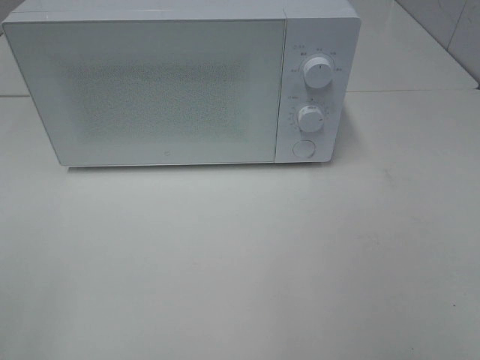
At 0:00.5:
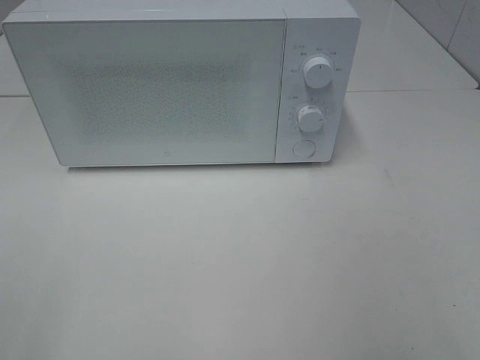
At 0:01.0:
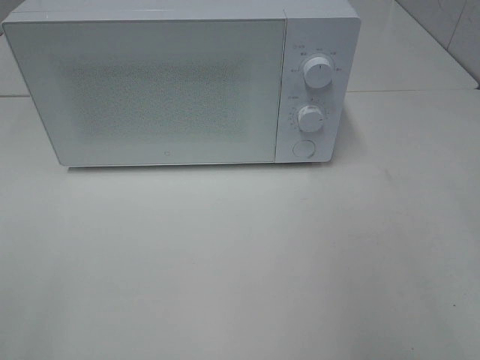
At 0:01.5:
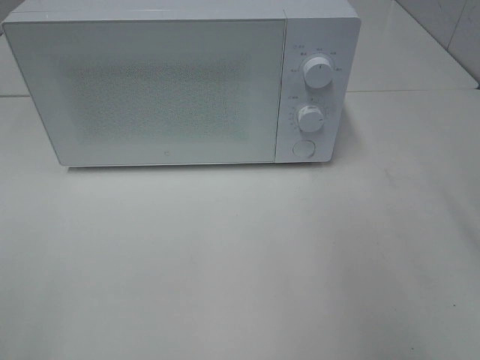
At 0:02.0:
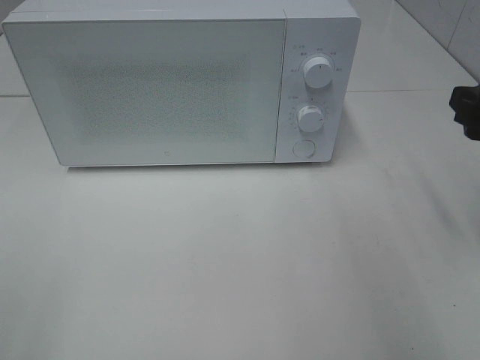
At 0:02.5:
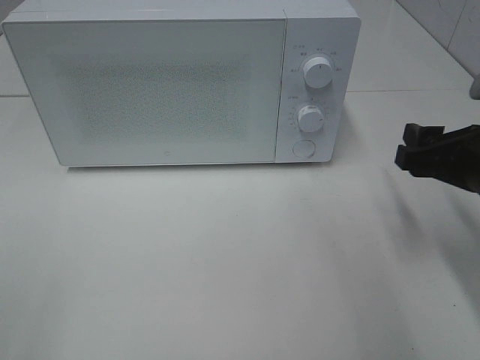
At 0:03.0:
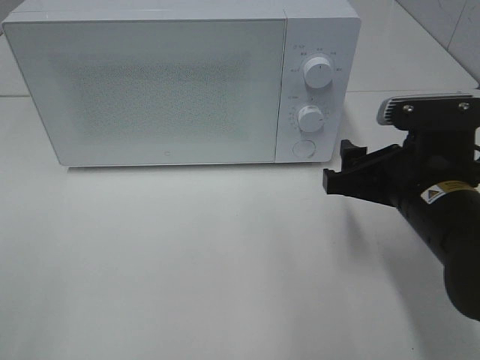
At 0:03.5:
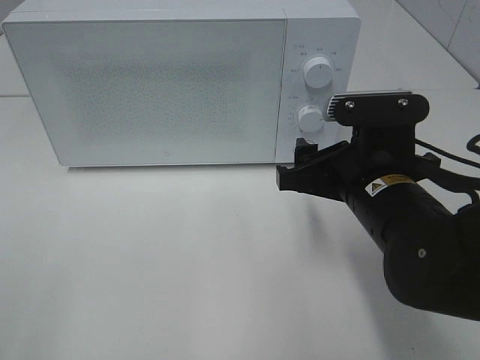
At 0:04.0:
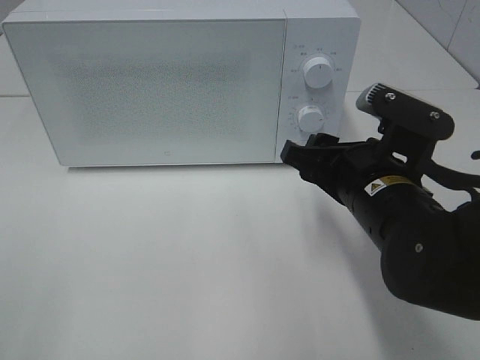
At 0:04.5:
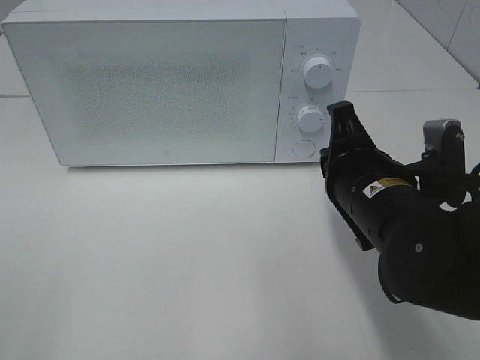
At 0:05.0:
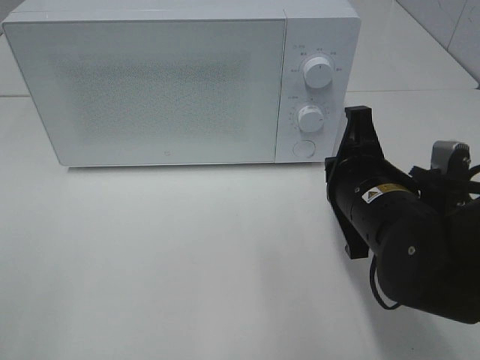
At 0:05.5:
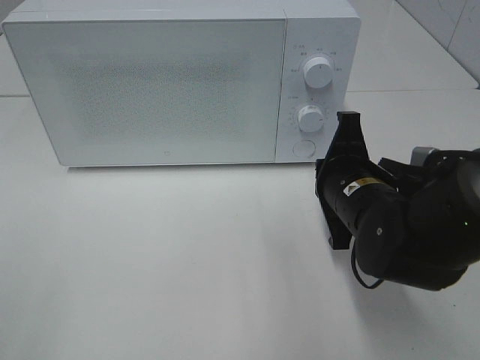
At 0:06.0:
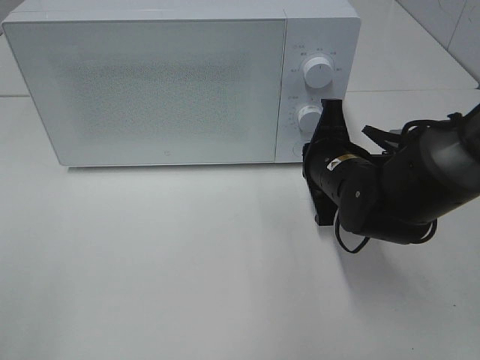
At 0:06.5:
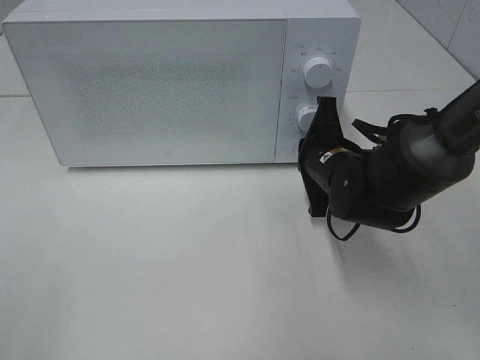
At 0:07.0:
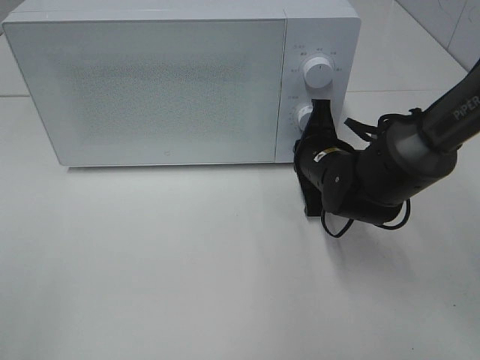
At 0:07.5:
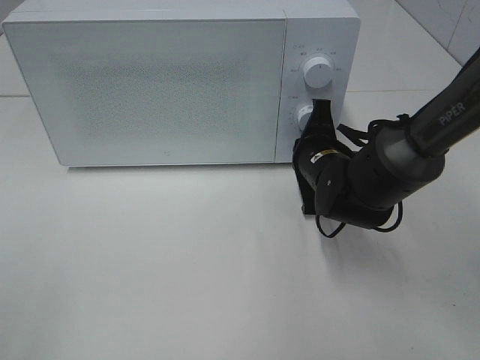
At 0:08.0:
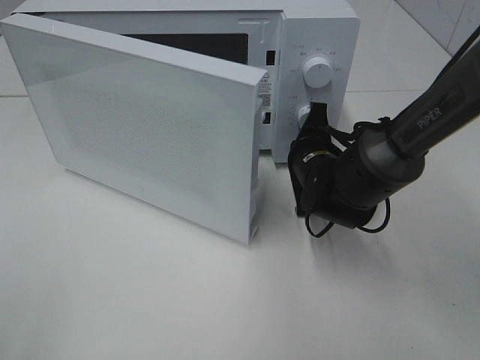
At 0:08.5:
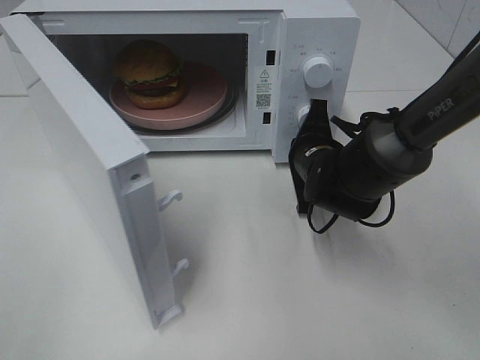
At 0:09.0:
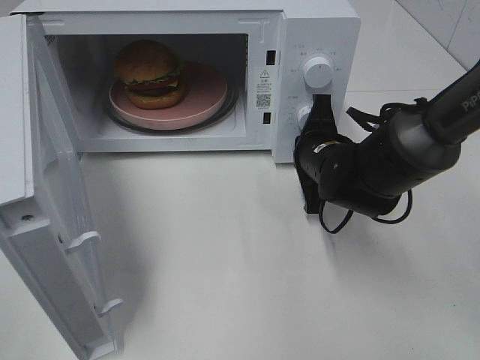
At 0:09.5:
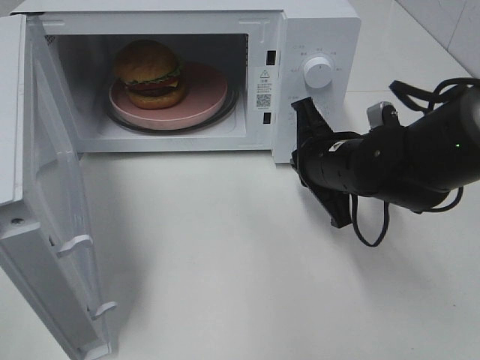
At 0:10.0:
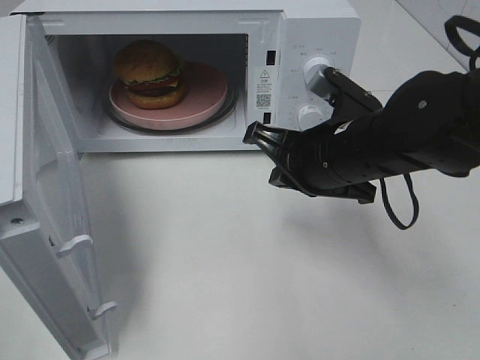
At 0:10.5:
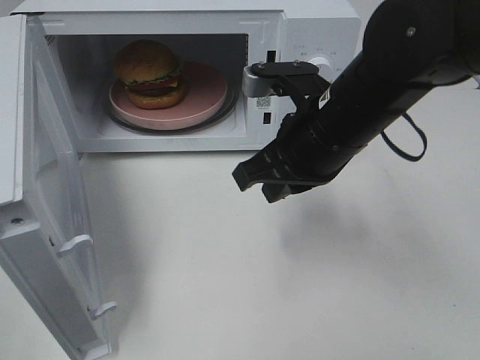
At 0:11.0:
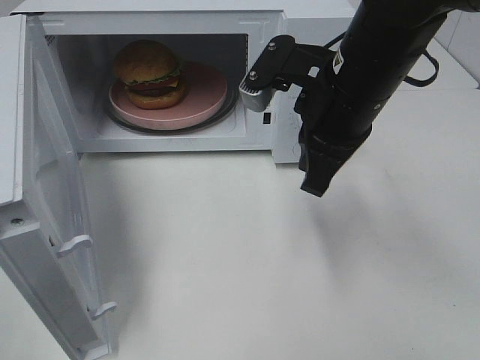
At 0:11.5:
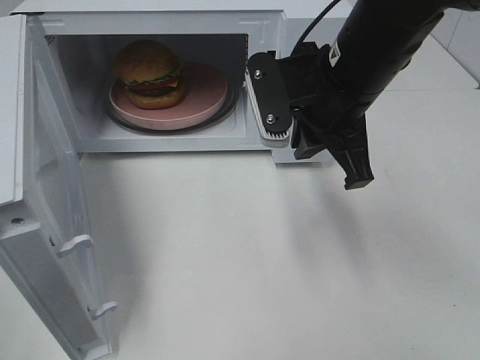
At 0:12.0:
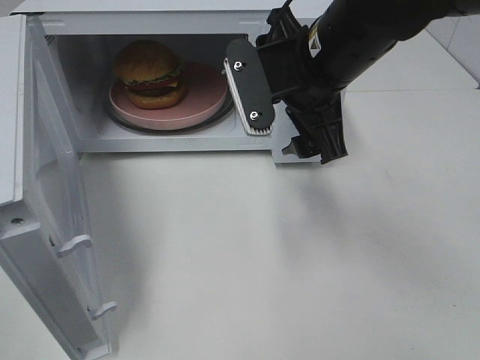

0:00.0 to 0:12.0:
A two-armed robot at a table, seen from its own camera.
Task of the whole recording: Heat the burger.
Step, 0:00.0 to 0:09.0: Right hand: press the switch.
0:00.0 to 0:02.0: The right gripper is displaced forward by roughly 20 cm.
0:02.0 to 0:04.0: The right gripper travels to the left and downward by about 15 cm.
0:04.0 to 0:06.0: The right gripper shifts some 10 cm forward, and closes its fingers.
0:06.0 to 0:08.0: The right gripper is displaced forward by approximately 5 cm.
0:08.0 to 0:10.0: The right gripper travels upward and backward by approximately 10 cm.
0:10.0 to 0:12.0: The right gripper travels upward by approximately 10 cm, and opens up.

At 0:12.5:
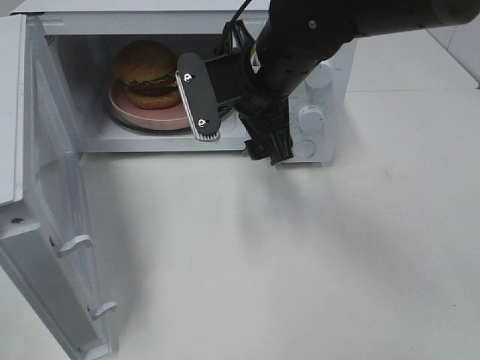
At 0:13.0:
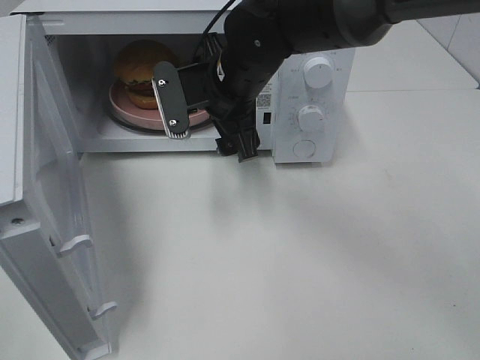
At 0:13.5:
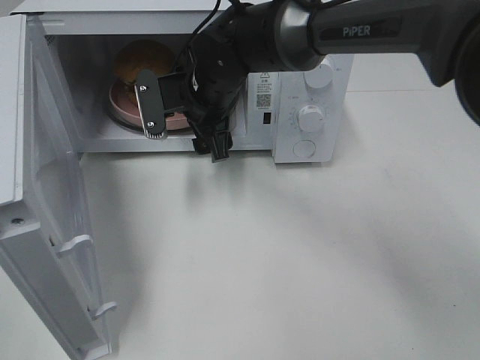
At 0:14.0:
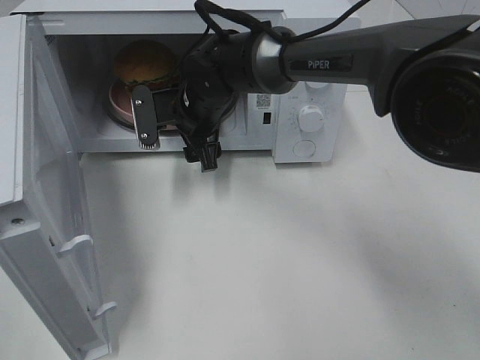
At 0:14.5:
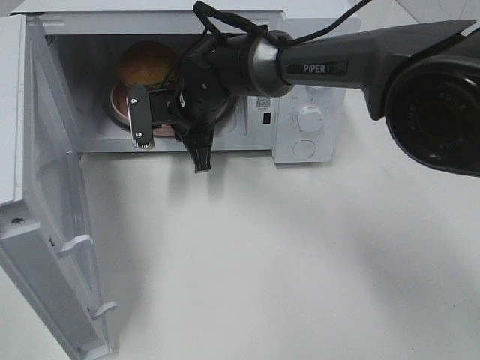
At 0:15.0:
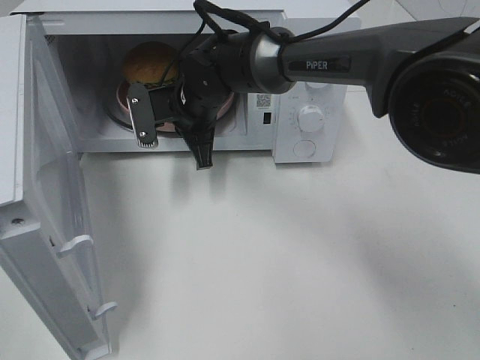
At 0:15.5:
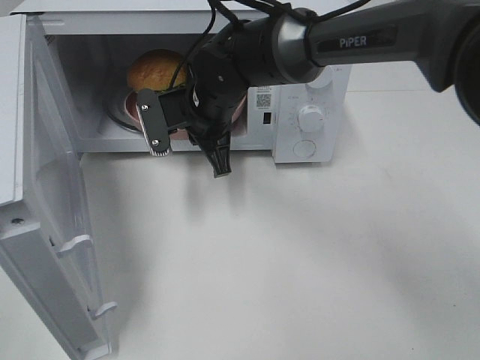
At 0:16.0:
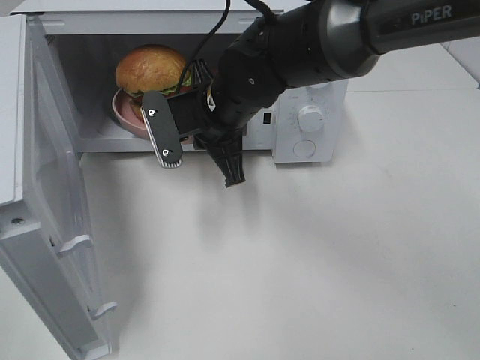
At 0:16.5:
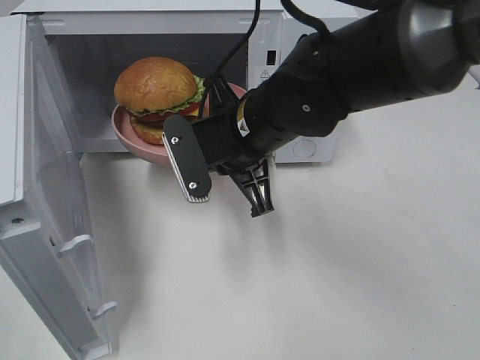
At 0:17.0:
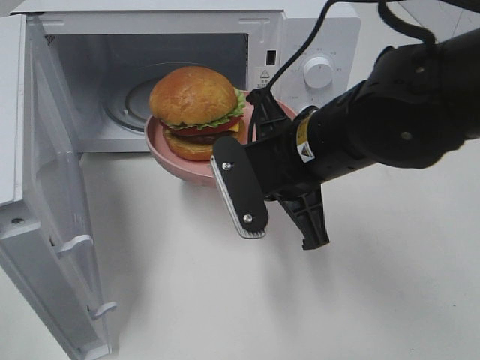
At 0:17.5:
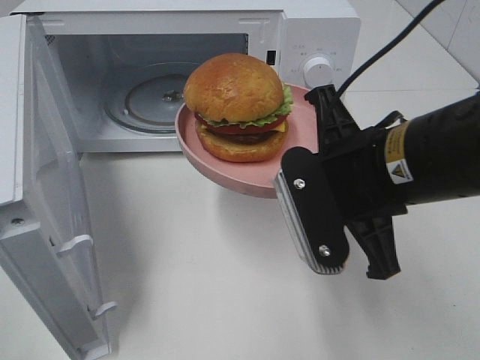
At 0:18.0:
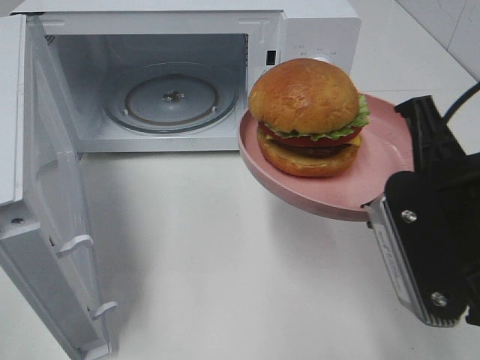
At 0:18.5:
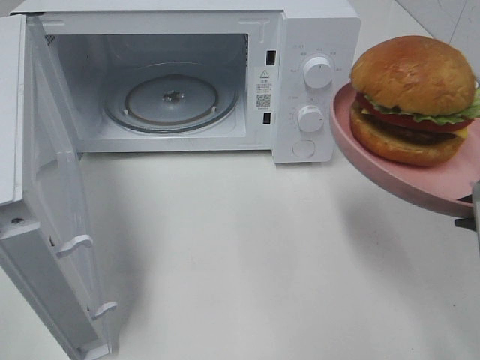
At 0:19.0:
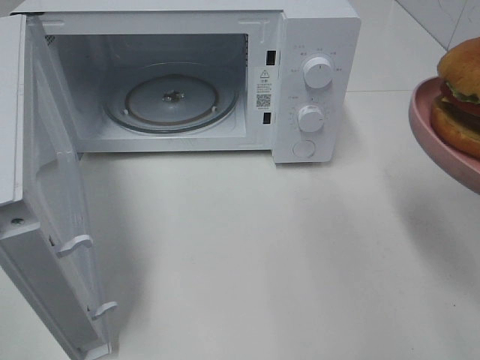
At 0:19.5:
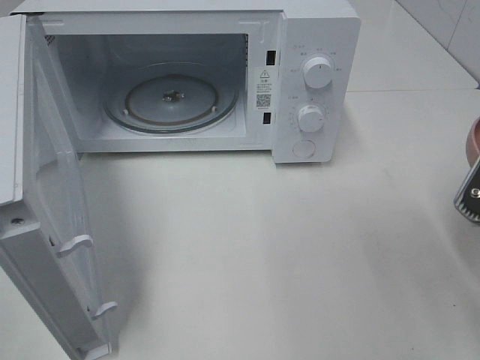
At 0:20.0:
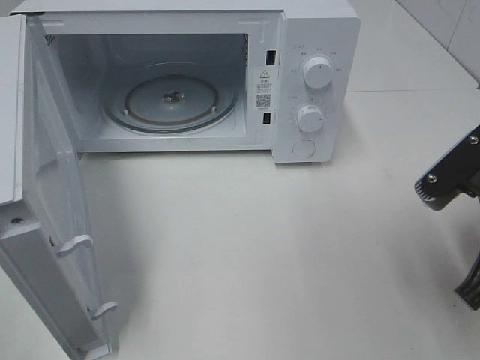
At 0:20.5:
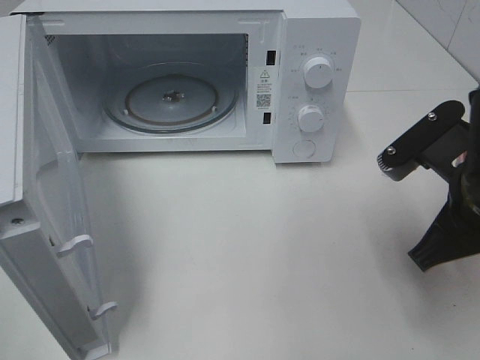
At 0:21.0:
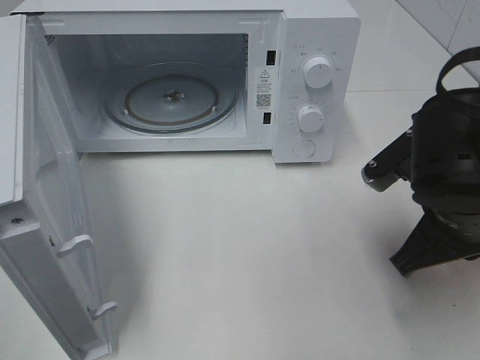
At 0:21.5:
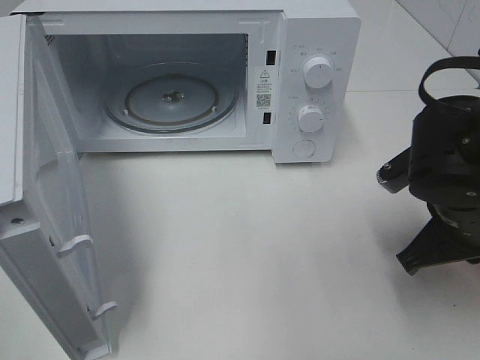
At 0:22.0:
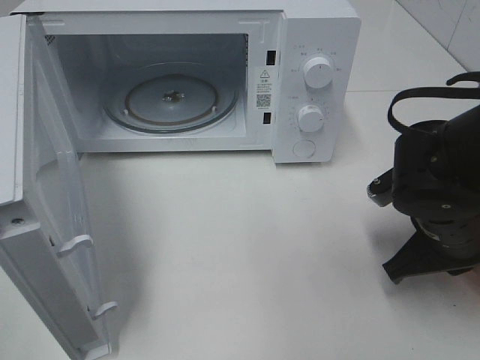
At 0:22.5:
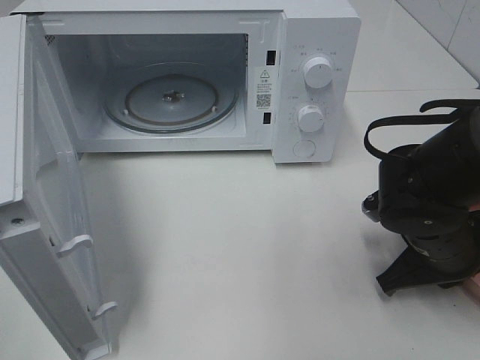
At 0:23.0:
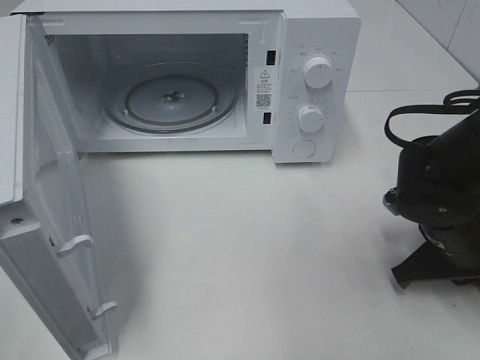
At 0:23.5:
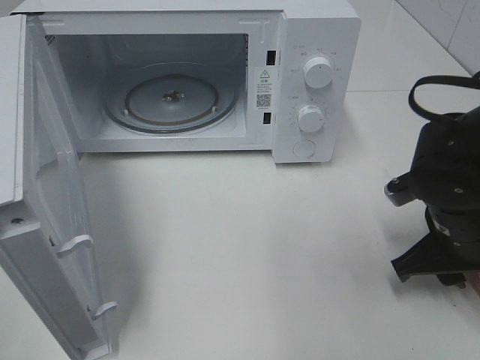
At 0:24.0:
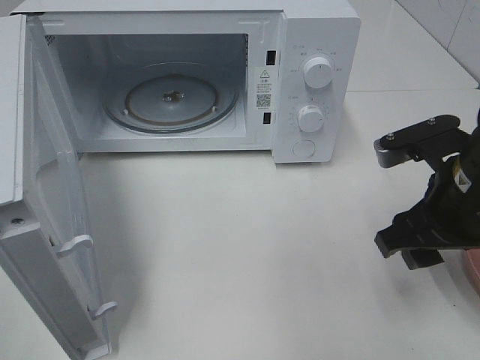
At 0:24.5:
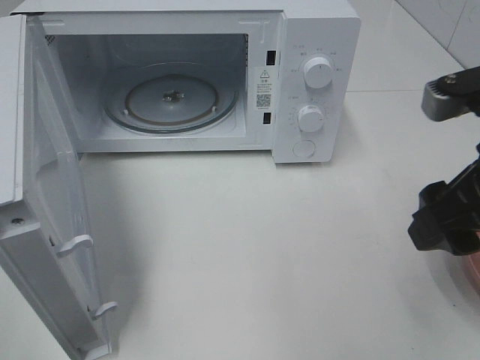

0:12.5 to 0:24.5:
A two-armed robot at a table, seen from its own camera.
Task of the whole recording: Heat the burger.
Step, 0:12.5 to 0:14.5: Right hand: grab the plate with the hamburger.
Step, 0:15.0 to 0:23.0: Right hand: place the plate on the table.
0:12.5 to 0:14.5: The right gripper heads downward, forward and to the left, covering roughly 15 cm, and closes its fingers.
0:14.5 to 0:16.5: The right gripper shifts roughly 15 cm backward, to the right and upward.
0:16.5 to 0:18.5: The right gripper moves to the right, backward and upward, roughly 30 cm.
0:18.5 to 0:20.5: The right gripper shifts some 10 cm forward and downward.
0:20.5 to 0:22.5: The right gripper goes approximately 10 cm downward.
0:22.5 to 0:24.5: The right gripper moves upward, approximately 15 cm, and opens its fingers.

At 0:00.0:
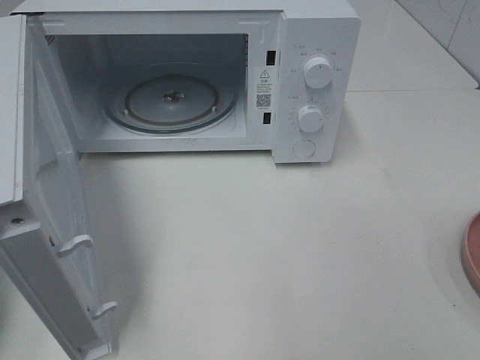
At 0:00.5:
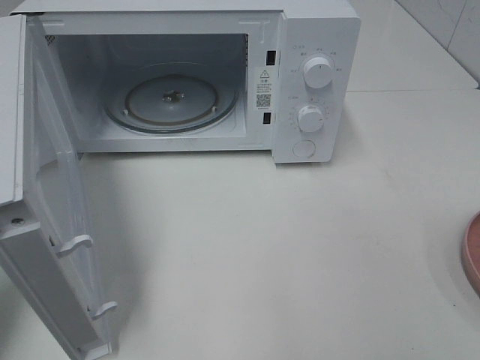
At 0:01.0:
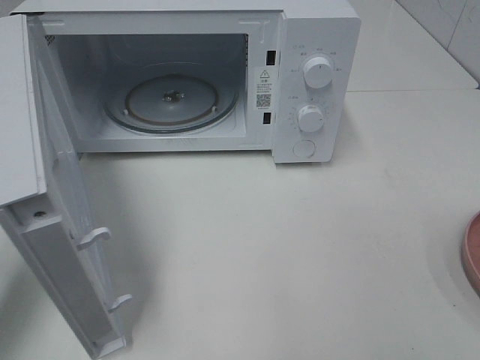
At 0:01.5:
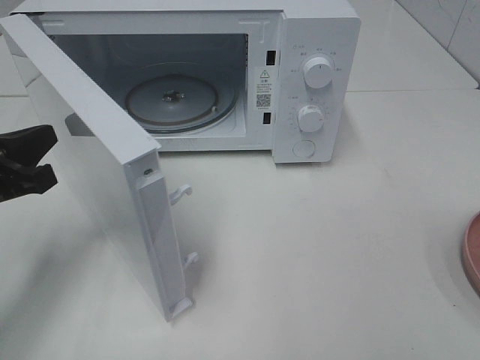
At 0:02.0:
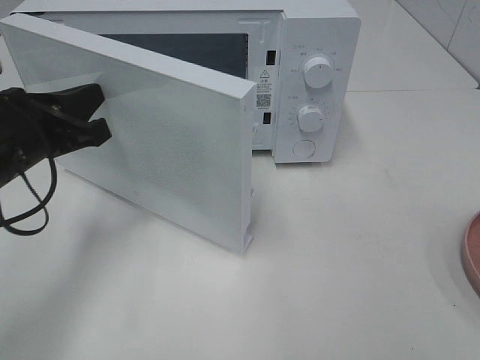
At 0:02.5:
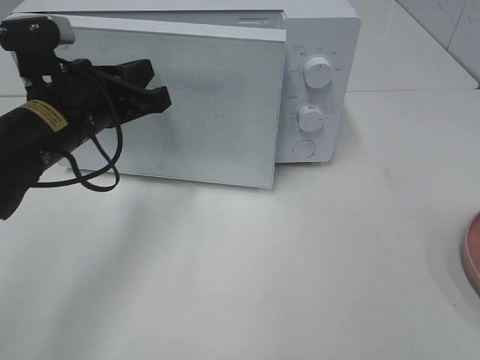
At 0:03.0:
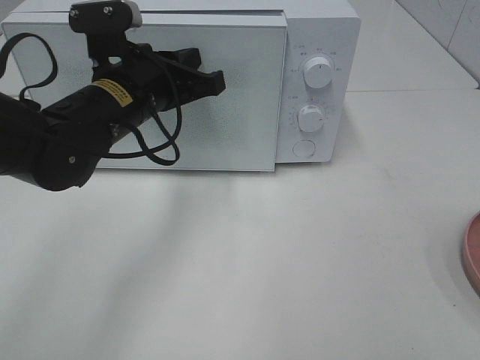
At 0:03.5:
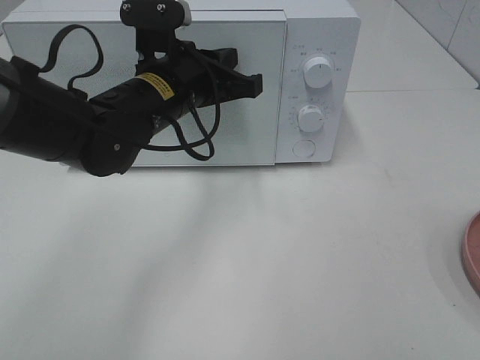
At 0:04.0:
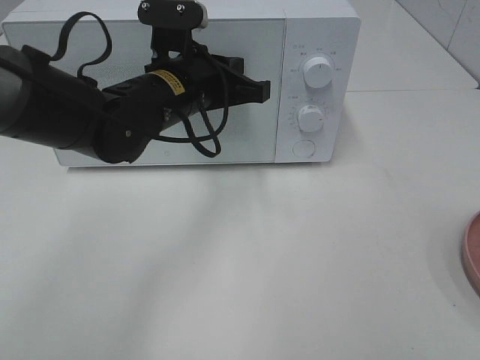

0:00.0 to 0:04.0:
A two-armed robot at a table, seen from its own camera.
Task of the whole recording: Heat the burger.
Step, 0:00.0 to 0:04.0: Left hand: close the microwave door.
0:00.0 to 0:02.0: The left gripper goes approximately 15 cm forward and to the right.
0:02.0 to 0:04.0: The left gripper travels to the right and forward by about 15 cm.
